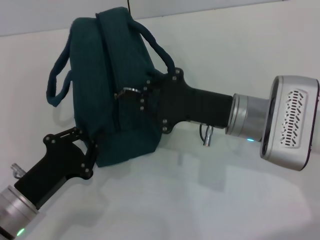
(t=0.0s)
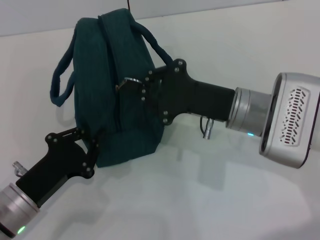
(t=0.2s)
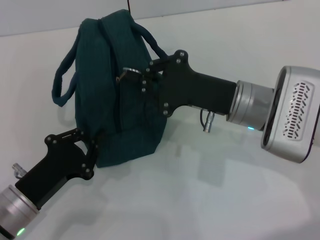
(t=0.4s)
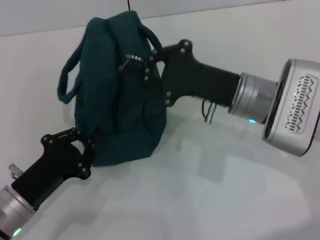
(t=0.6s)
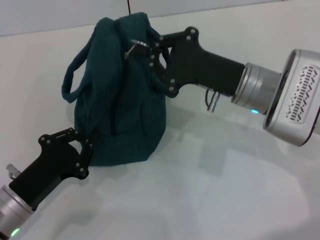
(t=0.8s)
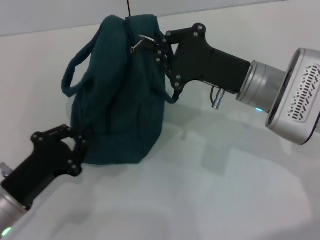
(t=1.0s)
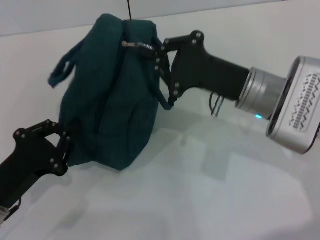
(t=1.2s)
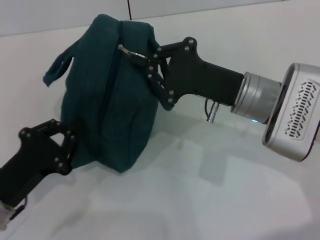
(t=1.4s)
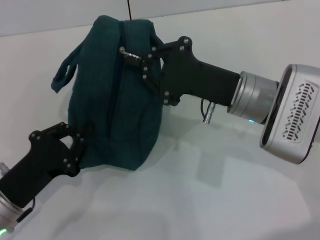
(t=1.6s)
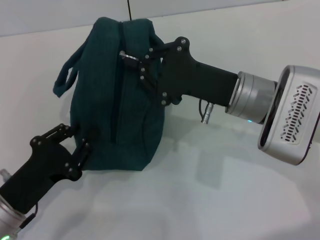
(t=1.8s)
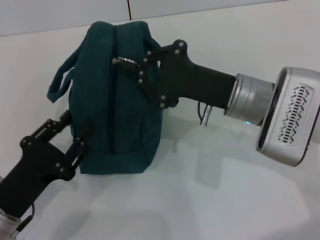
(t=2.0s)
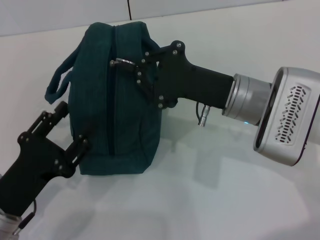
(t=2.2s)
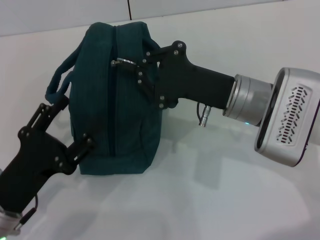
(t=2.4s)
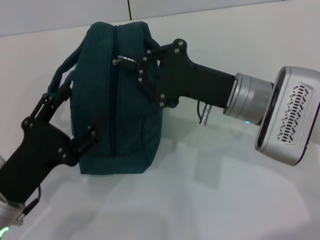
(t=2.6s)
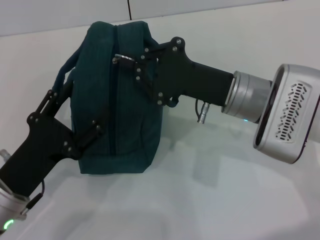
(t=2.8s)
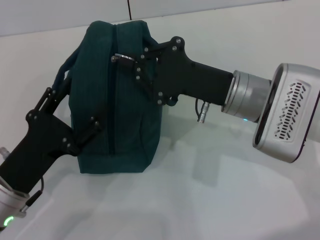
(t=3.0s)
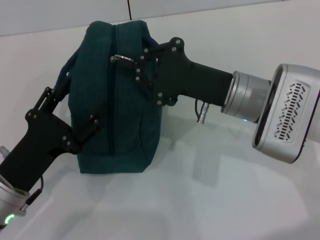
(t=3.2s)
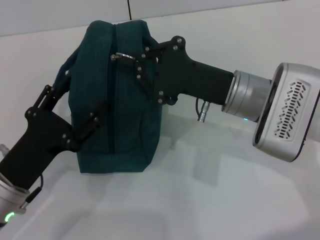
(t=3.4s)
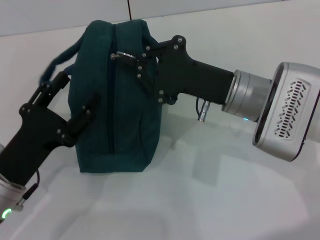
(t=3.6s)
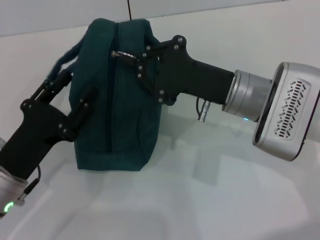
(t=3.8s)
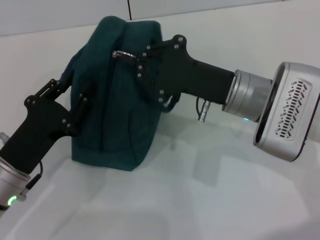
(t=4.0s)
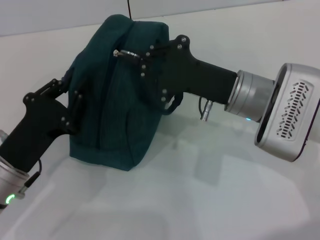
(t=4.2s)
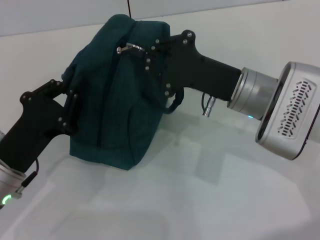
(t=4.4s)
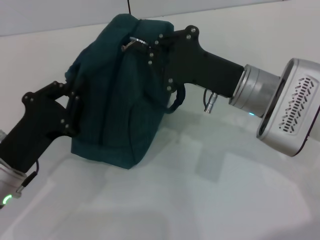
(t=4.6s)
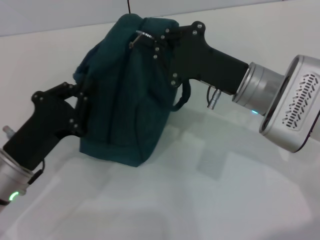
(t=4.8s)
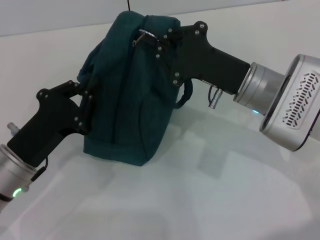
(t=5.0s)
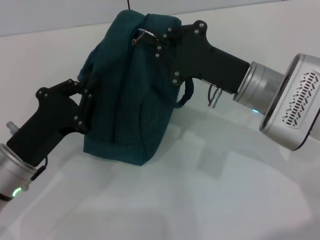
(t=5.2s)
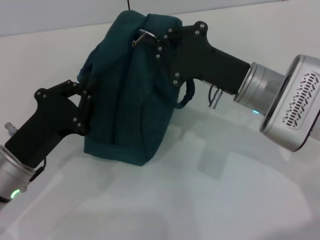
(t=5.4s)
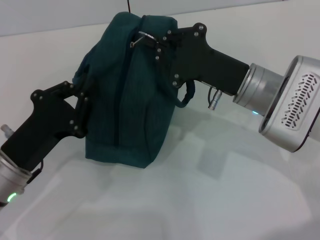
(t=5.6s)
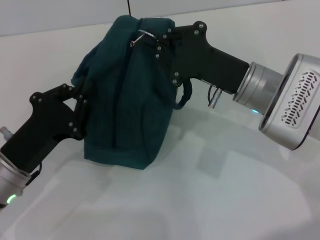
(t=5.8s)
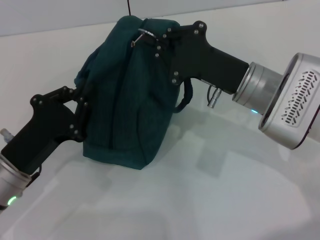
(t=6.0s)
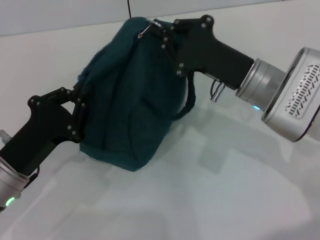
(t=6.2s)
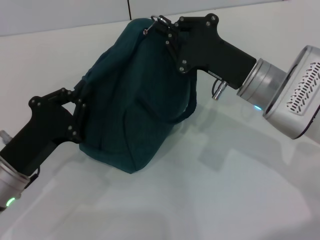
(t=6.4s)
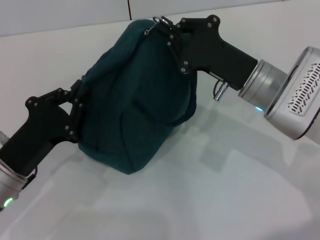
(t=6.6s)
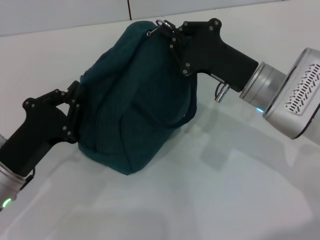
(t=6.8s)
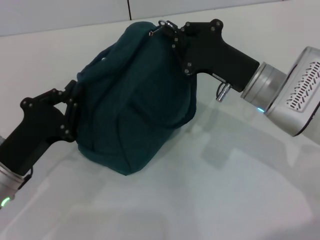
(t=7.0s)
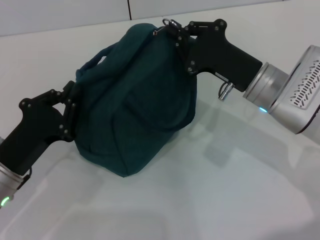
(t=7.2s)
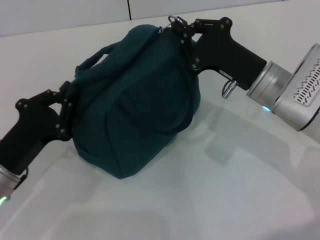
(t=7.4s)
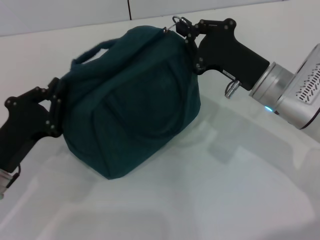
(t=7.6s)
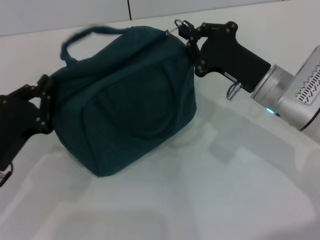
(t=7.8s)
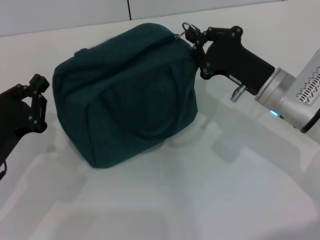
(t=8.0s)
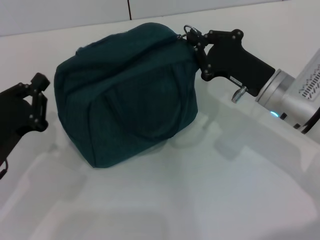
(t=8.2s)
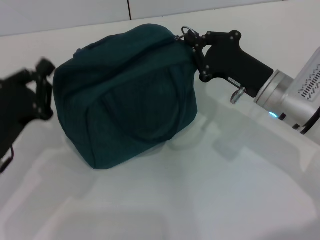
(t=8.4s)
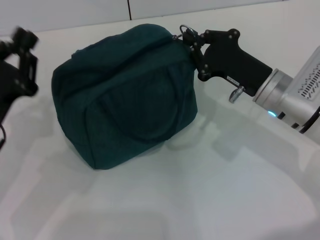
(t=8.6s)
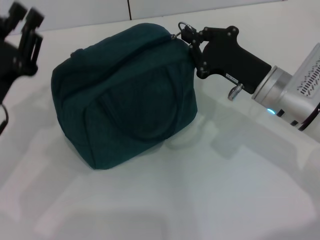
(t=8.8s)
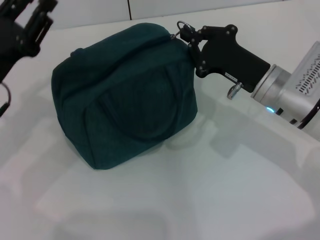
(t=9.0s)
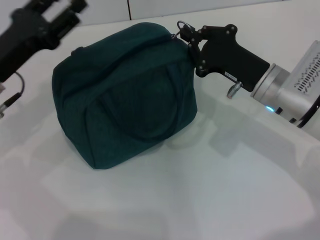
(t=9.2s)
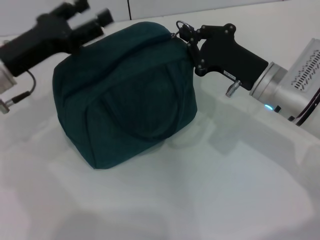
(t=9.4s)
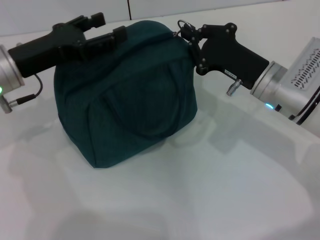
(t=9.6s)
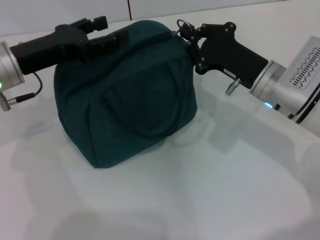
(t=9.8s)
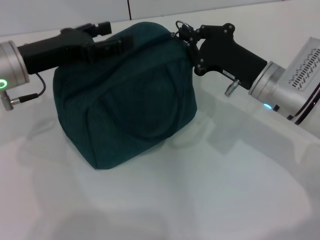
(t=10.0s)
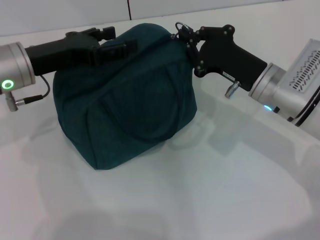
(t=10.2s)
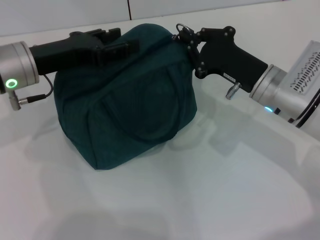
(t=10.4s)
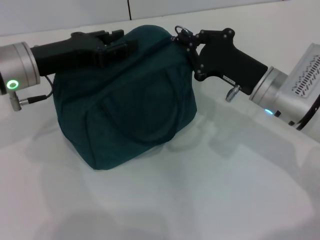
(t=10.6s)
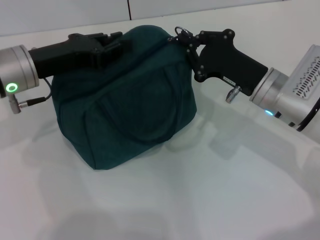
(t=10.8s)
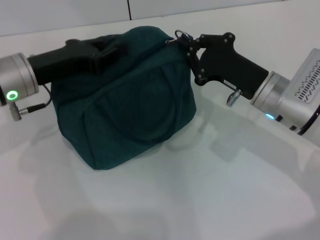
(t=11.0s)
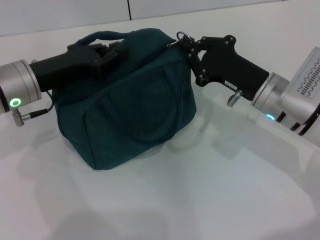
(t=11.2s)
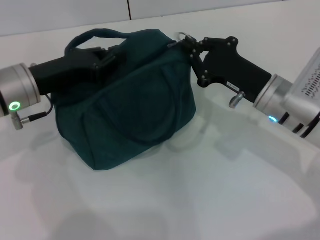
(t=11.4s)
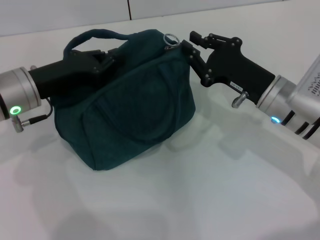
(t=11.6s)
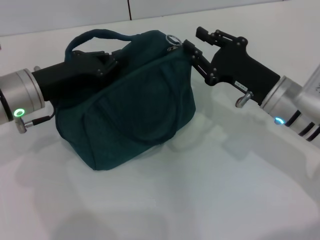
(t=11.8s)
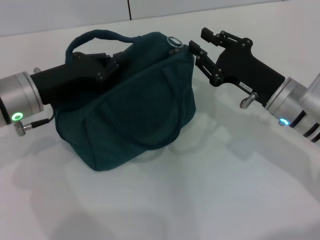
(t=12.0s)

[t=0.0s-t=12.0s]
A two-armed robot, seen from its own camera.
t=1.6s to t=3.0s: The left gripper opens up.
t=3.0s to t=4.4s: The left gripper closes.
t=4.4s to t=6.0s: The grippers move only a little.
t=6.0s to t=7.6s: There are only small adjustments of the grippers.
t=7.6s to t=9.0s: The left gripper is displaced upward and forward by about 10 cm.
t=9.0s to t=10.4s: The left gripper moves forward and to the right, roughly 10 cm, and opens.
t=10.4s to t=12.0s: The left gripper closes up.

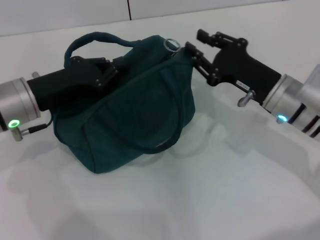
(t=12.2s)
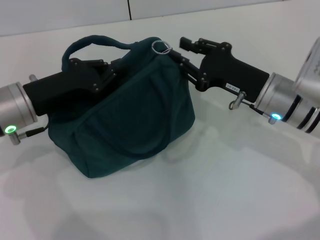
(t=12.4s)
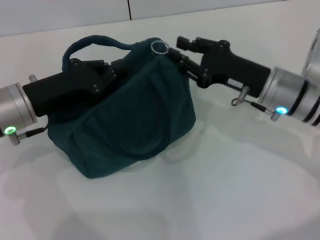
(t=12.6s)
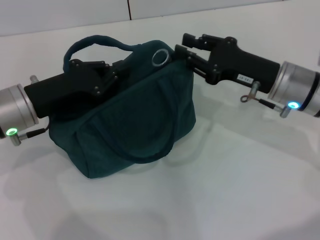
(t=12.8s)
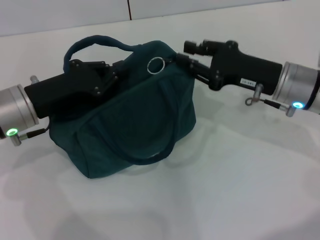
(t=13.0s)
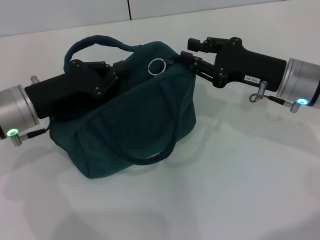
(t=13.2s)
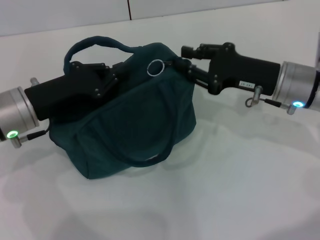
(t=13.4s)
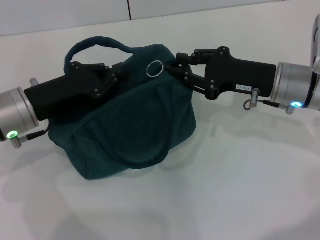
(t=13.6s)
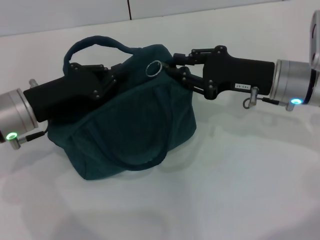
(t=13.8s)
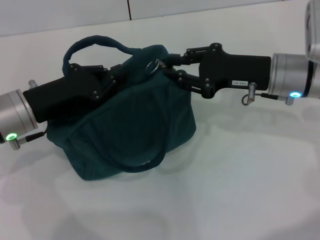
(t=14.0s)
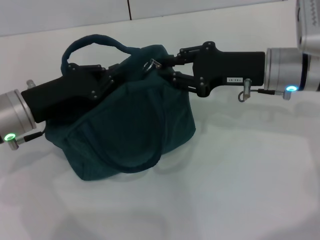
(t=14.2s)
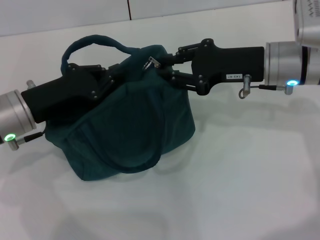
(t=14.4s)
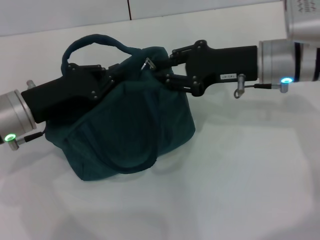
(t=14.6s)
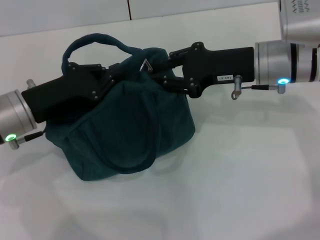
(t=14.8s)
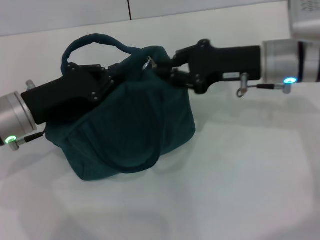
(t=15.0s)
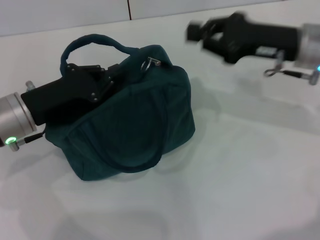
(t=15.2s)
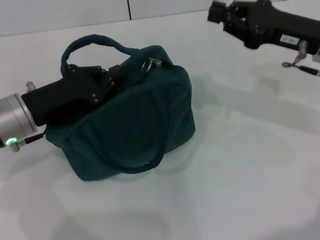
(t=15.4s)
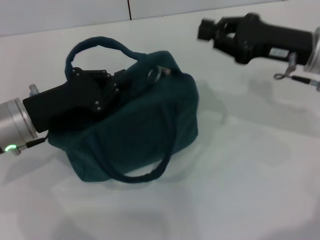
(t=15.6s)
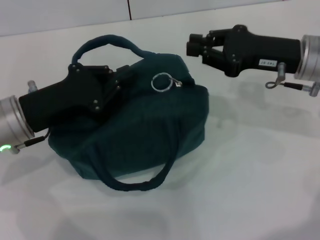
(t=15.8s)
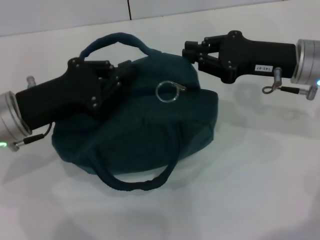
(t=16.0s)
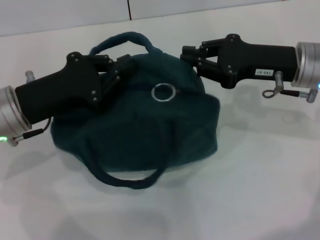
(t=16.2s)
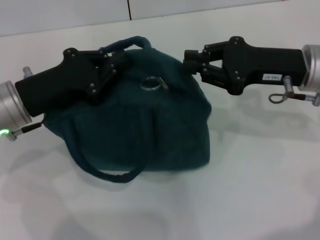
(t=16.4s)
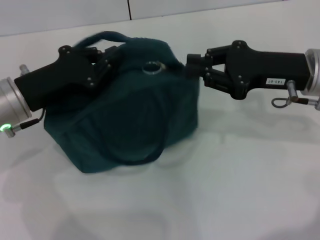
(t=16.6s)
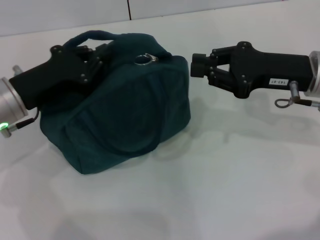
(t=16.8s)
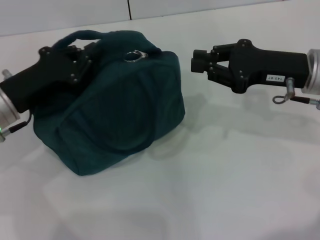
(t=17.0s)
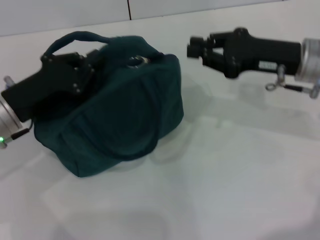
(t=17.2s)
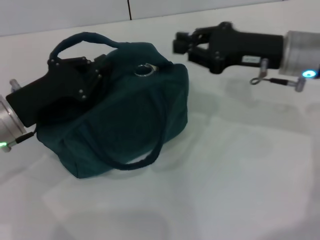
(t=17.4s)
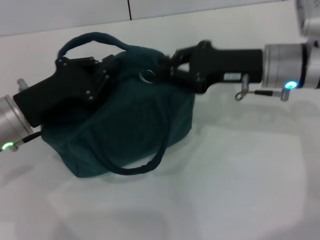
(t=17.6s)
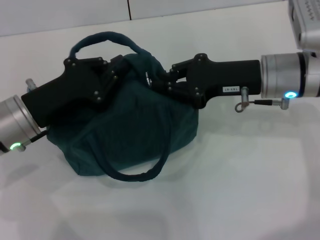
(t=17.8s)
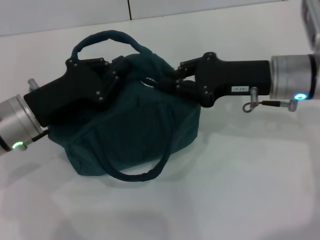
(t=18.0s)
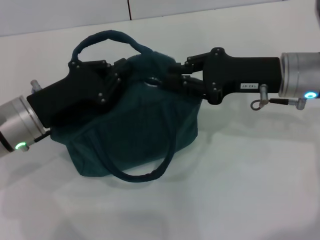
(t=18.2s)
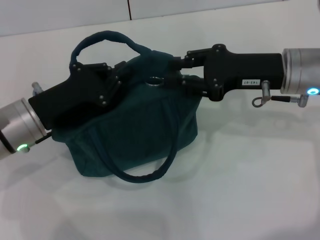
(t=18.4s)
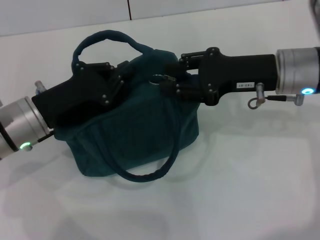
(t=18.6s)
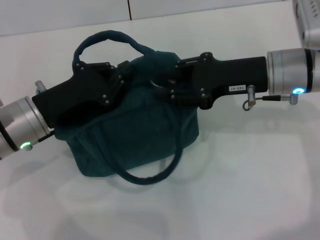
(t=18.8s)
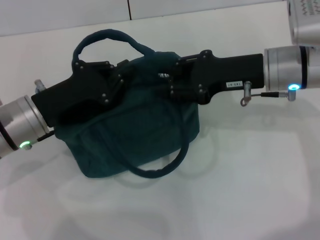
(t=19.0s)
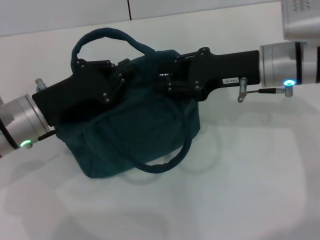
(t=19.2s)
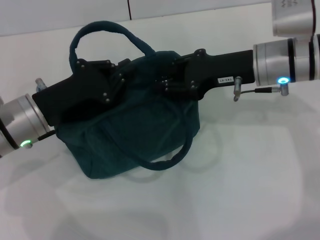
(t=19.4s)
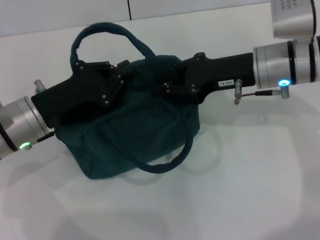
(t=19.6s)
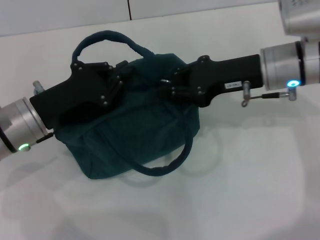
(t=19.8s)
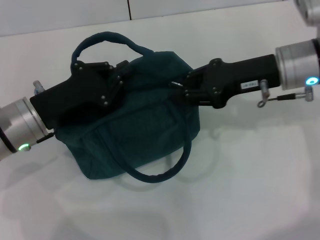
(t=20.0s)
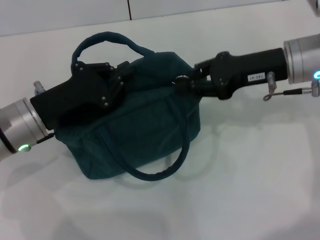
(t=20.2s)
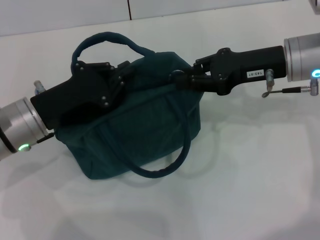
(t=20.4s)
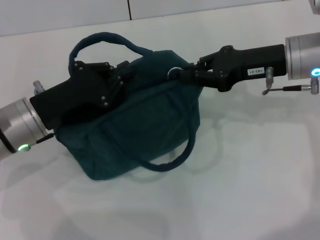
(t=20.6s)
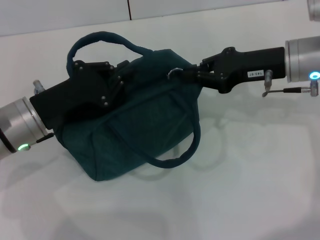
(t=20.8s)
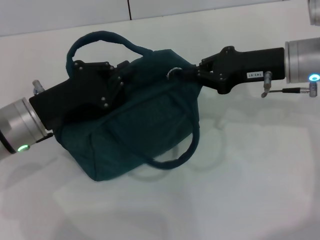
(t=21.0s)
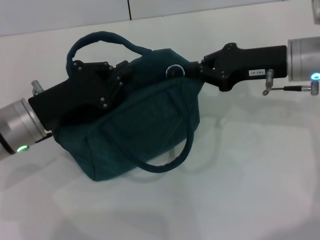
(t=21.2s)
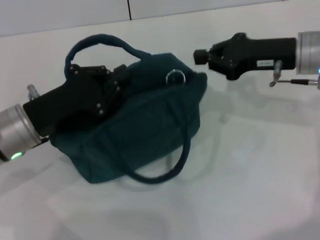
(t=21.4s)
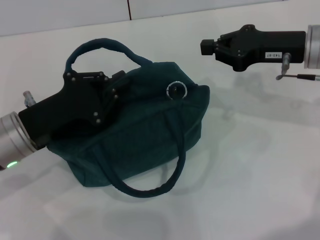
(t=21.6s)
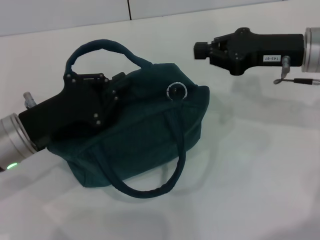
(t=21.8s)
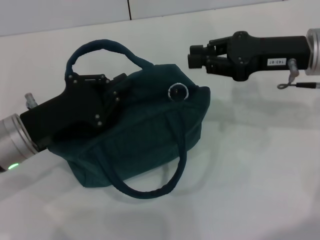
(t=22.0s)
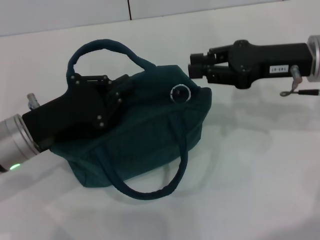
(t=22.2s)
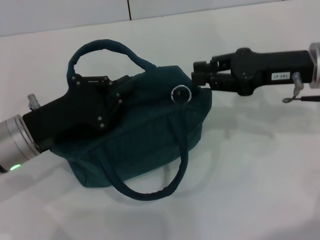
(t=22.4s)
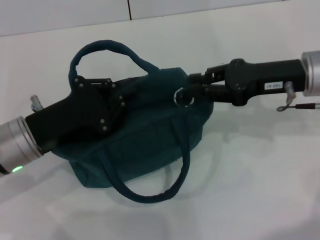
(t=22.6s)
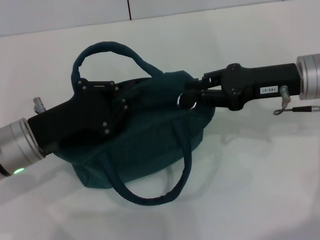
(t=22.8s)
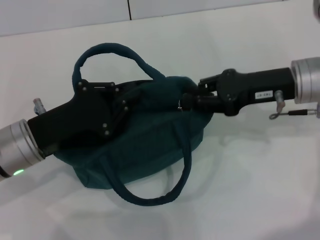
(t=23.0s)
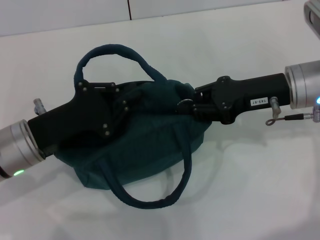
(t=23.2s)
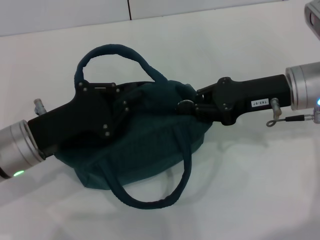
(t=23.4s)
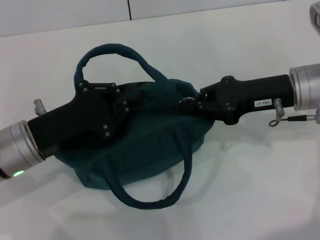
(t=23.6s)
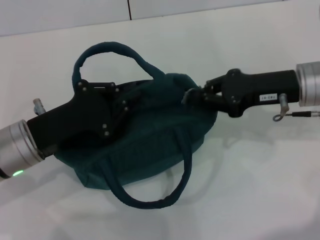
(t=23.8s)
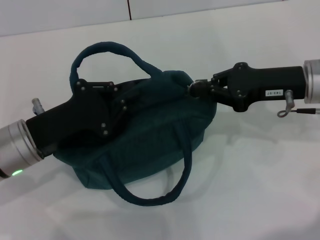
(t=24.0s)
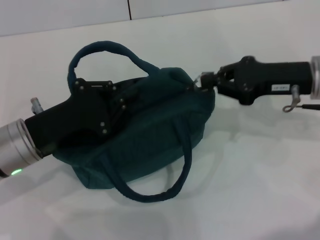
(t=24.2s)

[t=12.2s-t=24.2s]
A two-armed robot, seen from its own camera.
t=13.8s to t=15.2s: The right gripper changes place by approximately 5 cm.
t=16.6s to t=18.2s: The grippers move only a little.
t=18.2s to t=19.8s: The grippers make only small movements.
t=19.8s to t=21.2s: The right gripper closes.
t=22.6s to t=24.2s: There are only small adjustments of the grippers.
